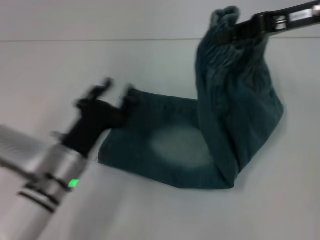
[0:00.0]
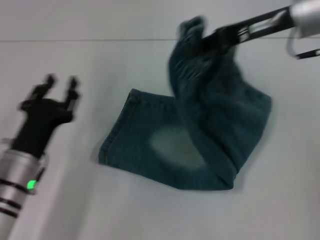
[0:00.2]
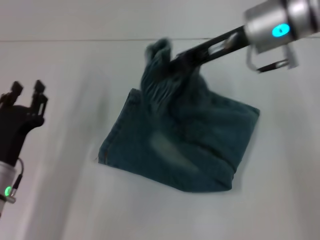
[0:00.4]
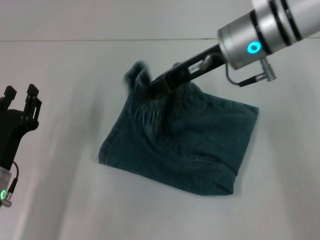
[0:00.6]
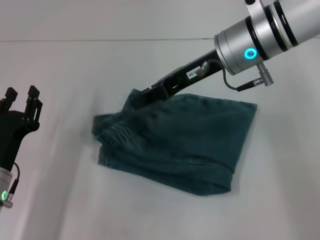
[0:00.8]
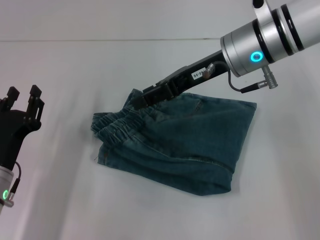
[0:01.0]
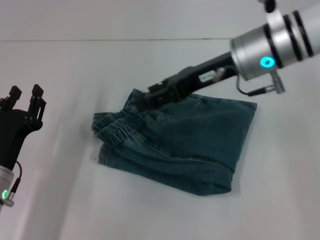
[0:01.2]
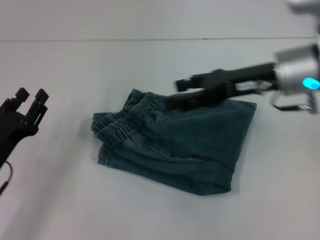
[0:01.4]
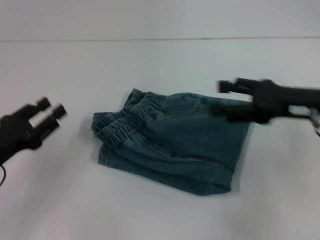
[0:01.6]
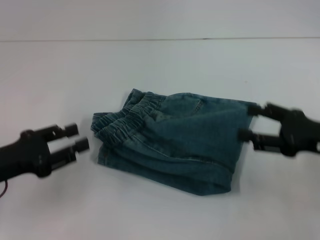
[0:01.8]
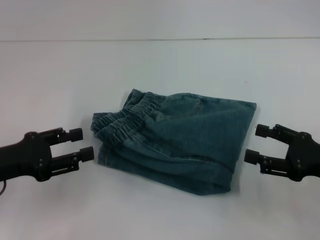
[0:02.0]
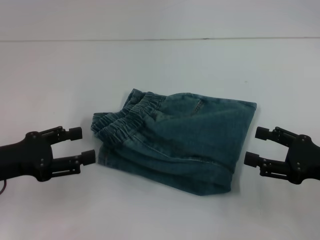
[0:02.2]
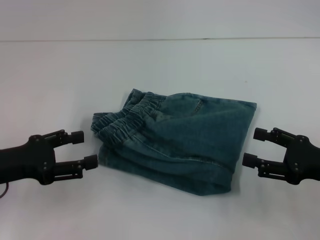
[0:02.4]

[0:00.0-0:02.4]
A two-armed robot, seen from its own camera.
Step, 0:00.0 to 0:00.8: Fold to the left with your right hand.
0:00.0 to 0:01.2: The left gripper is displaced to the left by about 10 cm; the right gripper shifts roughly 10 cm to the left and downward, and opens.
0:01.2 to 0:02.4: The left gripper shifts roughly 10 cm upward. Meanwhile the right gripper travels to the right, backward and downward by about 25 cm, and opens.
